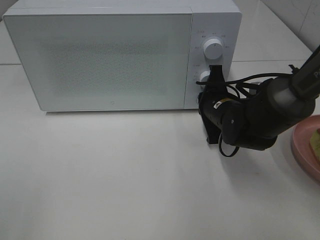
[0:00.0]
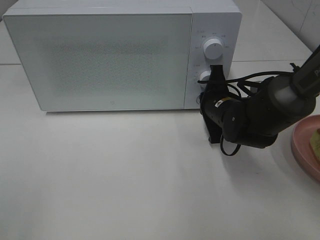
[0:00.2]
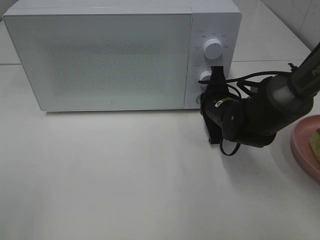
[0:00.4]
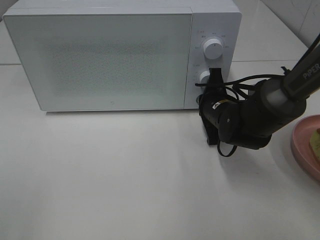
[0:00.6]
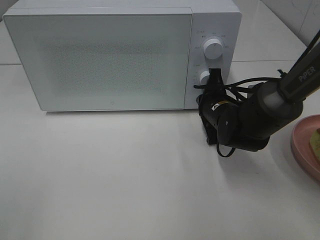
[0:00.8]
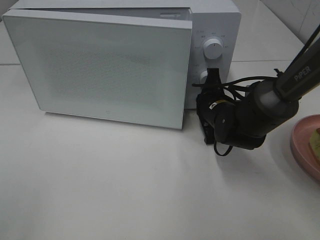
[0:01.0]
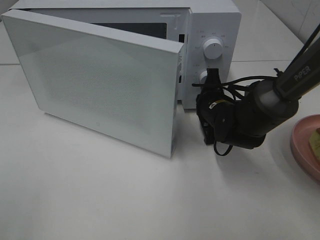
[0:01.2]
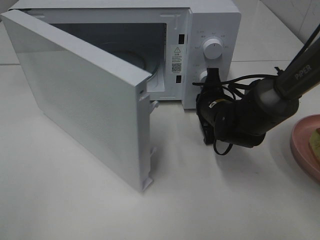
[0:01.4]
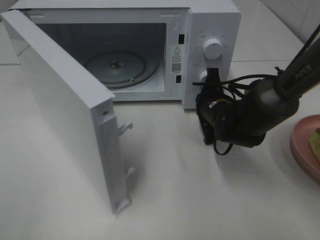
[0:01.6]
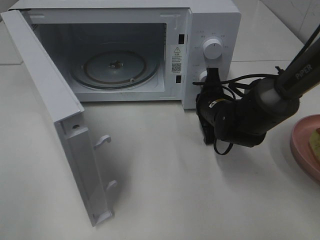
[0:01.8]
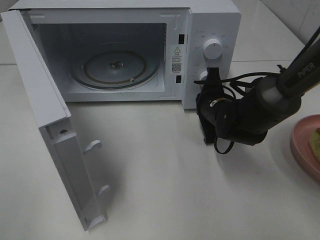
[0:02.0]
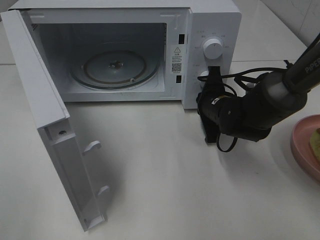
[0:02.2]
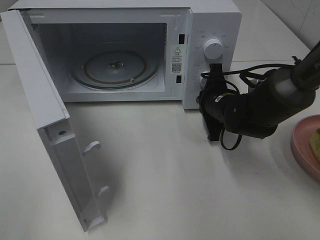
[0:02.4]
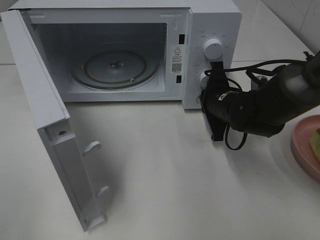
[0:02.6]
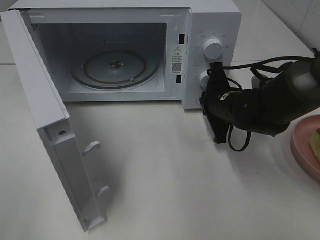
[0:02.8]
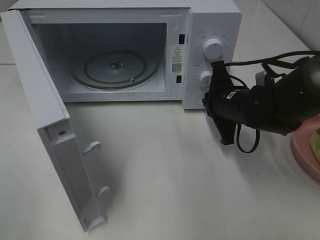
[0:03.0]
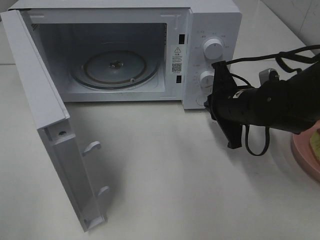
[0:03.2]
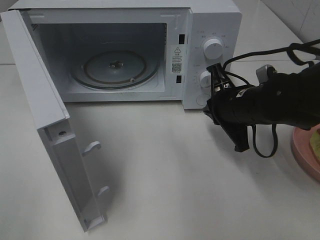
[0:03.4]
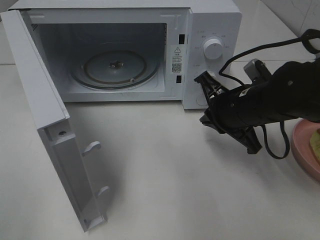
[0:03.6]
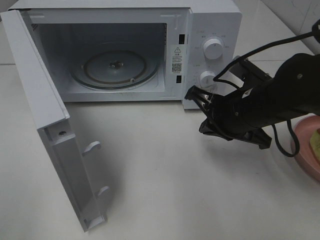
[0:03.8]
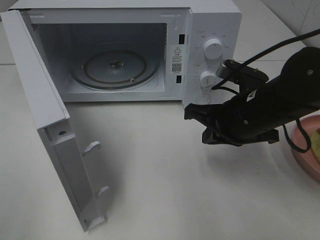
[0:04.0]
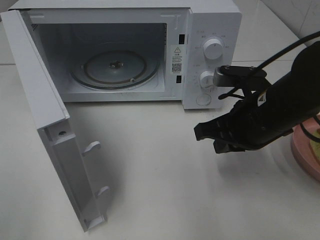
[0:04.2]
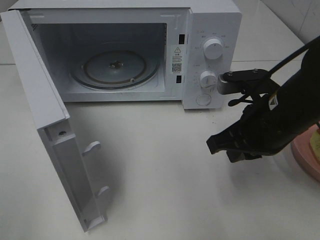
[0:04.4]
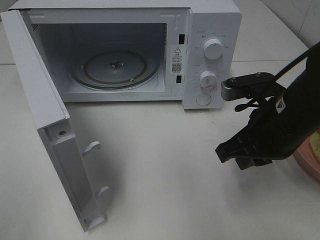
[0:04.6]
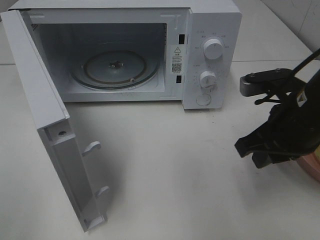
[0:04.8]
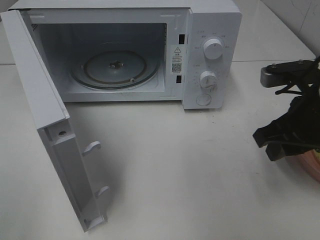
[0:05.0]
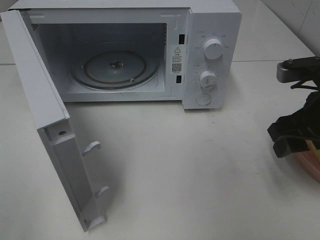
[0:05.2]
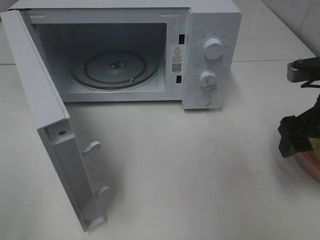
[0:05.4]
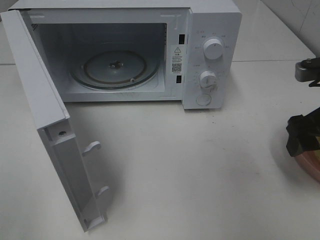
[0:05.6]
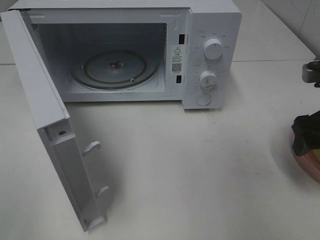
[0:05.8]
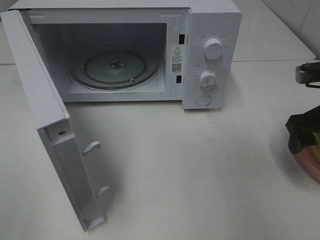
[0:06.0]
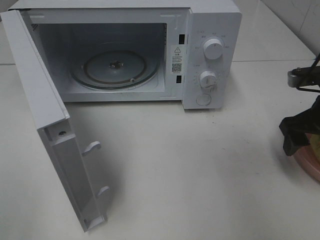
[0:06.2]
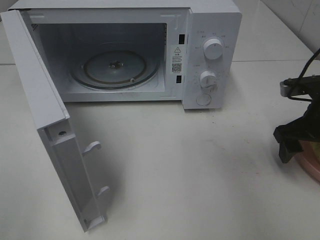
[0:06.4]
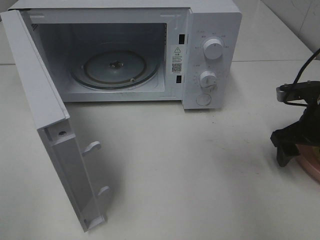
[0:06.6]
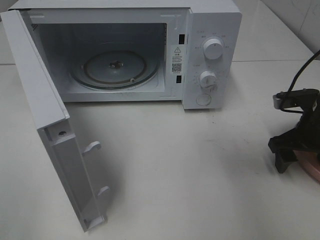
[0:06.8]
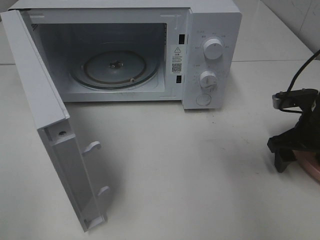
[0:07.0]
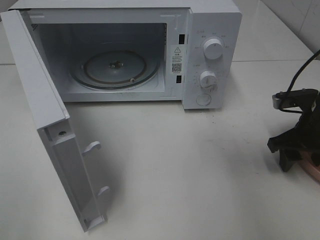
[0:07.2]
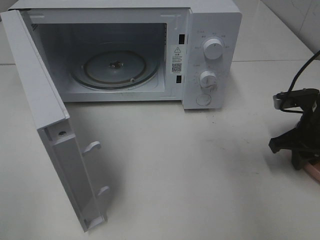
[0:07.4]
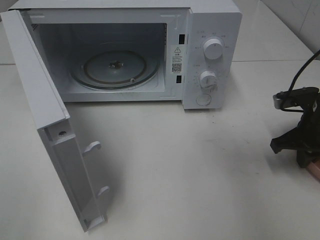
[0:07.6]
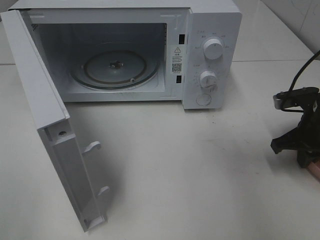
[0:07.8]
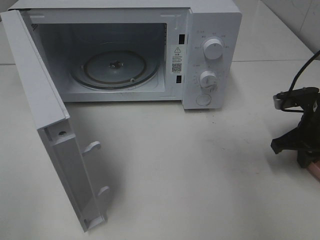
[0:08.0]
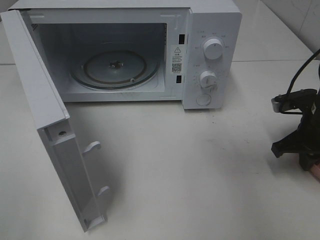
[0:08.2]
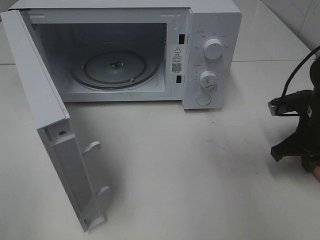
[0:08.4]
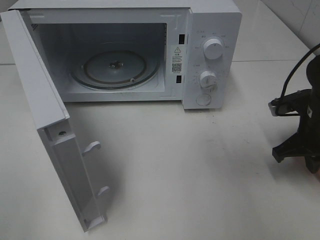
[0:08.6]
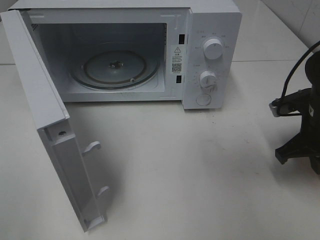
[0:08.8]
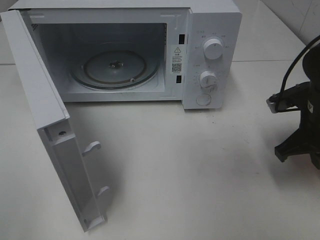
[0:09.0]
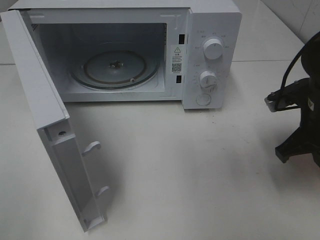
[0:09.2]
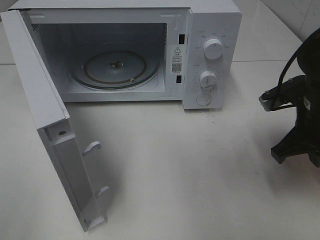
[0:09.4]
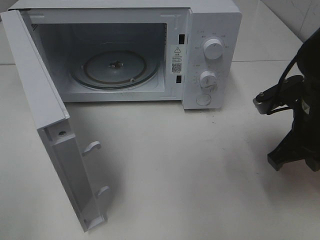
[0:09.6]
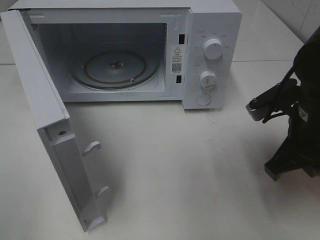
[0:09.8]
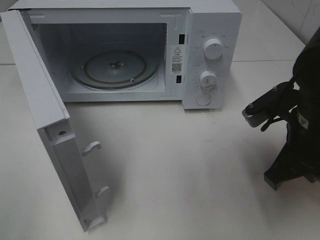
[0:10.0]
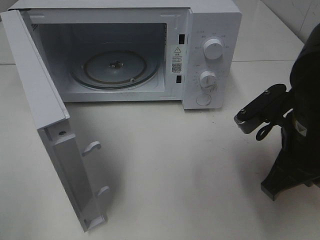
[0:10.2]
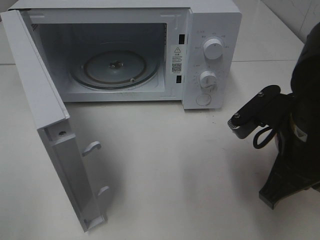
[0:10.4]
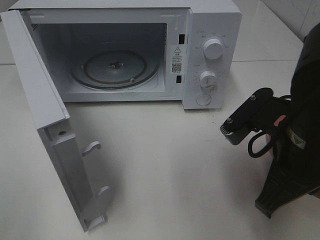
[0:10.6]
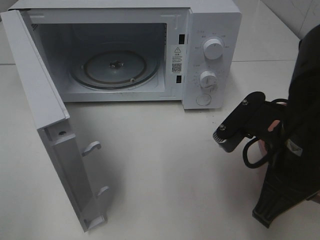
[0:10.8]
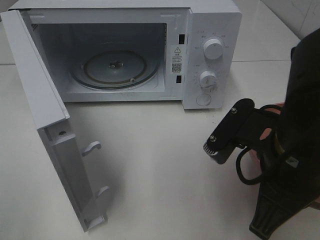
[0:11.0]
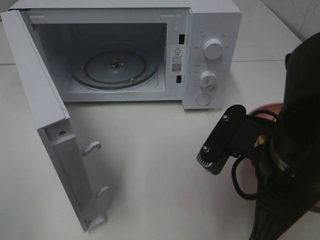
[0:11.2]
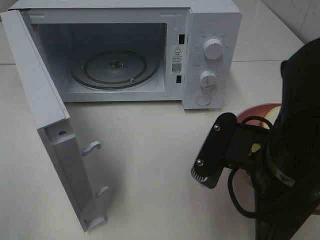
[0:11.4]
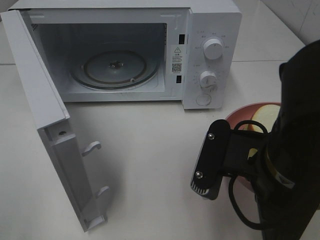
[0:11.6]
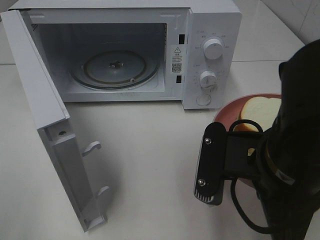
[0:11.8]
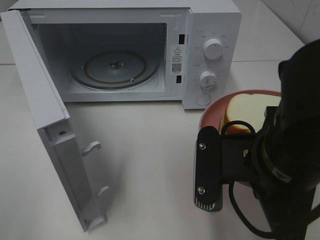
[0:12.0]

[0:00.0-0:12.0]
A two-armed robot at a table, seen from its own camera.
Task of the whole recording: Heat Sandwich.
Step, 0:00.0 to 0:03.2: Right hand: press the switch.
Step, 0:03.4 to 0:08.0: Right hand: grab the plate with the sandwich.
0:01.6 to 0:03.0: The right gripper moves about 5 cm.
0:03.0 to 0:04.4: The right gripper is displaced backward and upward by approximately 10 cm.
0:04.4 to 0:06.0: The right gripper goes about 10 cm to the right, and opens up.
0:06.0 to 0:07.6: The right gripper moves downward, approximately 5 cm, and closes its fingers.
0:07.6 to 0:09.0: The grippers make only small movements.
0:09.0 to 0:10.4: The right gripper moves backward, to the left and upward, roughly 15 cm.
0:10.4 to 0:12.0: The right gripper travels to the left by some 5 cm.

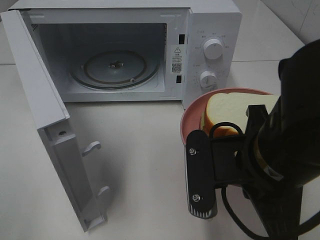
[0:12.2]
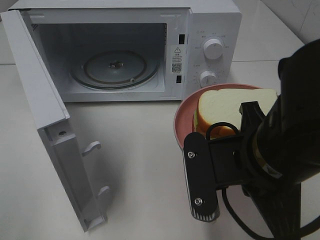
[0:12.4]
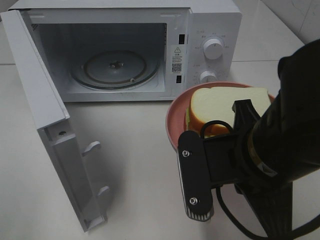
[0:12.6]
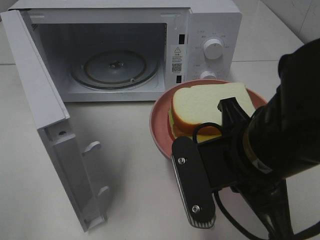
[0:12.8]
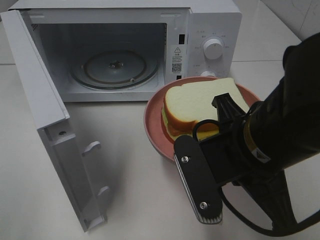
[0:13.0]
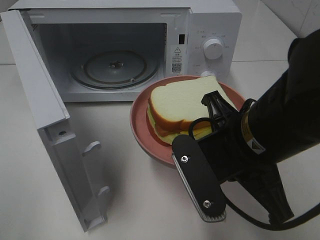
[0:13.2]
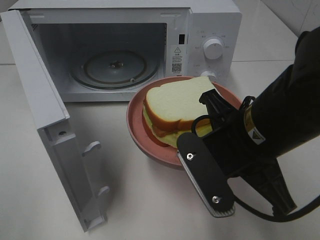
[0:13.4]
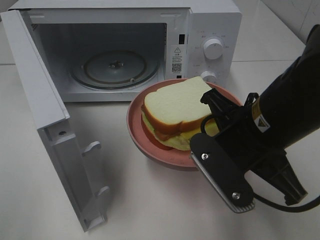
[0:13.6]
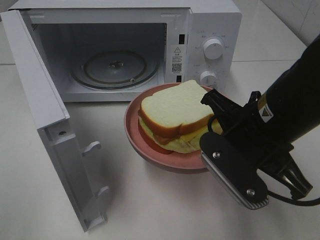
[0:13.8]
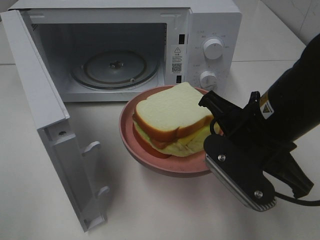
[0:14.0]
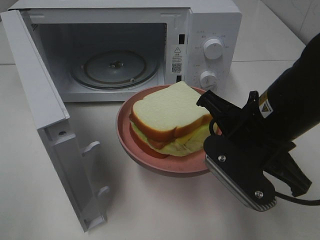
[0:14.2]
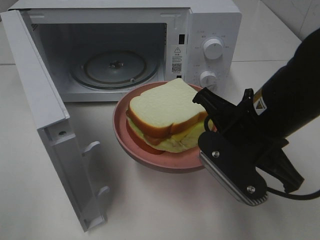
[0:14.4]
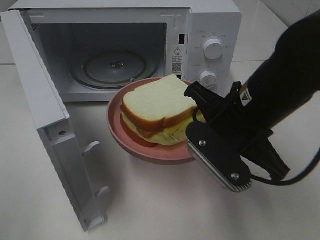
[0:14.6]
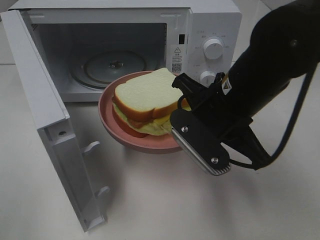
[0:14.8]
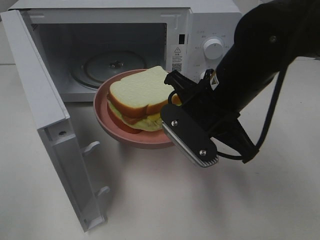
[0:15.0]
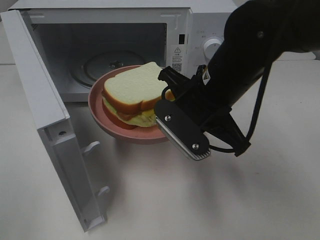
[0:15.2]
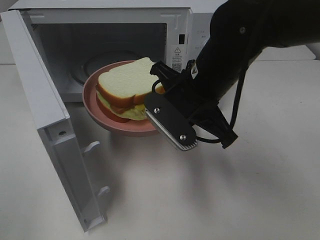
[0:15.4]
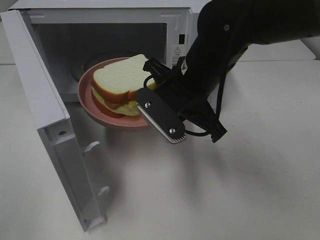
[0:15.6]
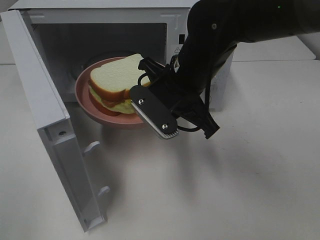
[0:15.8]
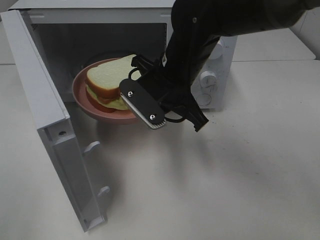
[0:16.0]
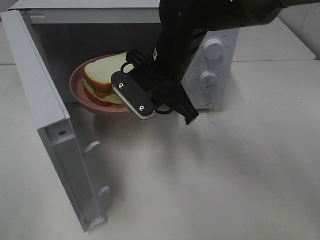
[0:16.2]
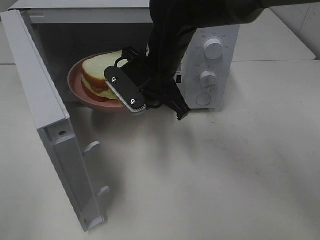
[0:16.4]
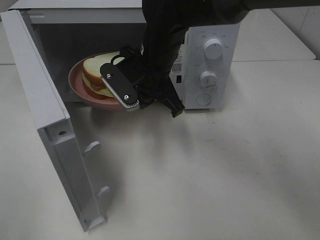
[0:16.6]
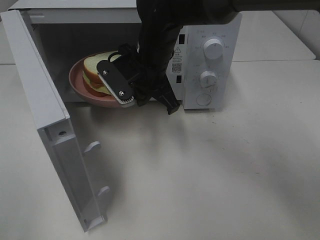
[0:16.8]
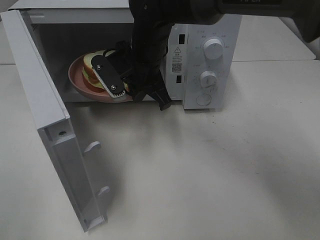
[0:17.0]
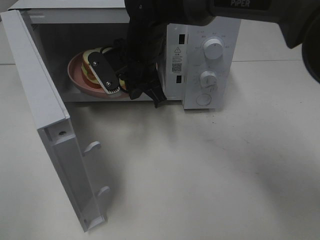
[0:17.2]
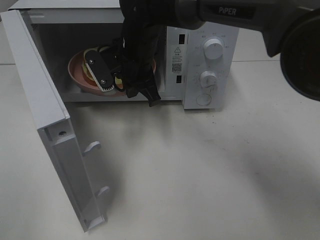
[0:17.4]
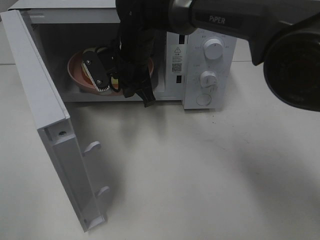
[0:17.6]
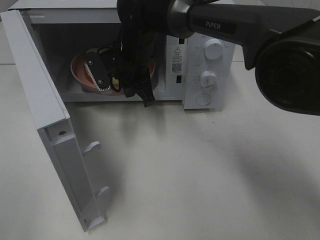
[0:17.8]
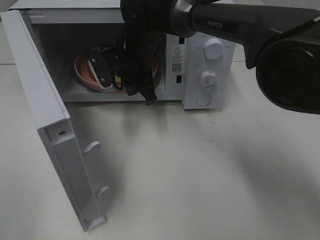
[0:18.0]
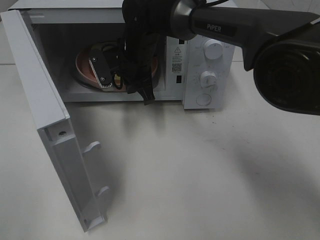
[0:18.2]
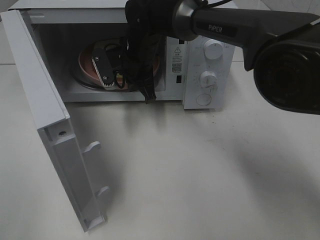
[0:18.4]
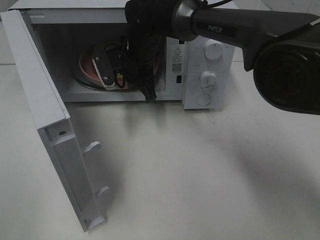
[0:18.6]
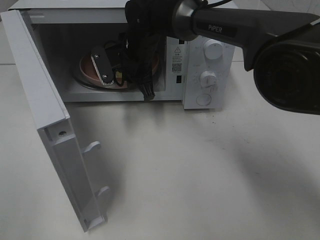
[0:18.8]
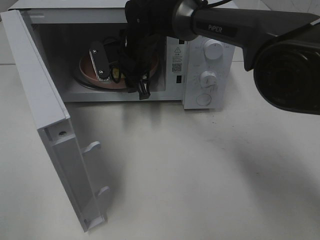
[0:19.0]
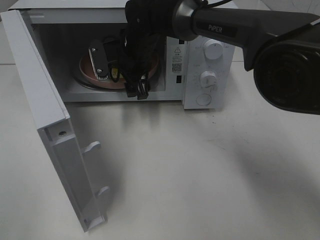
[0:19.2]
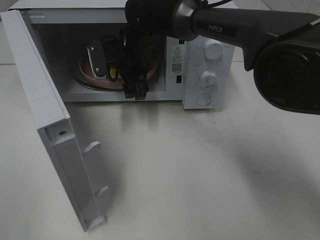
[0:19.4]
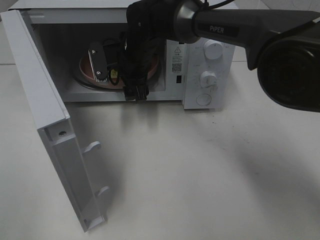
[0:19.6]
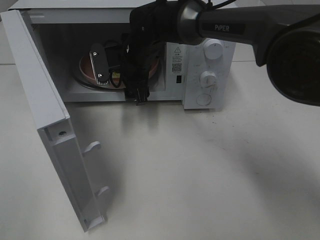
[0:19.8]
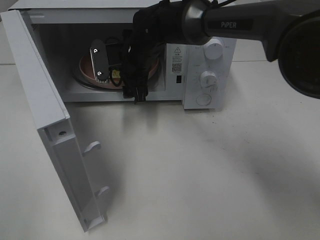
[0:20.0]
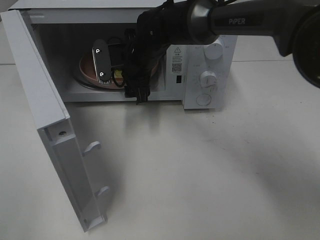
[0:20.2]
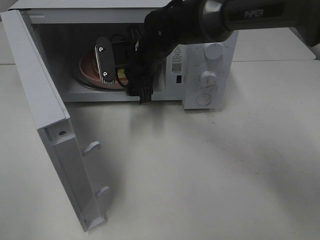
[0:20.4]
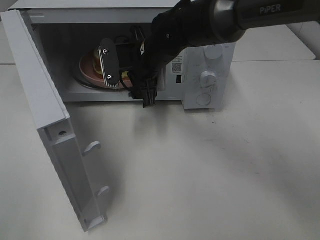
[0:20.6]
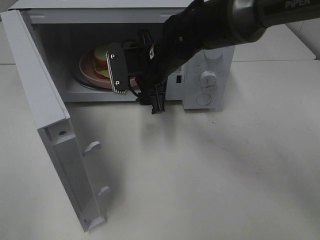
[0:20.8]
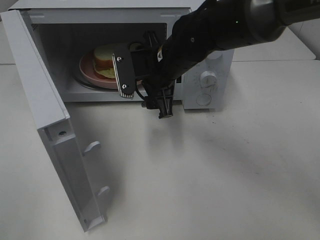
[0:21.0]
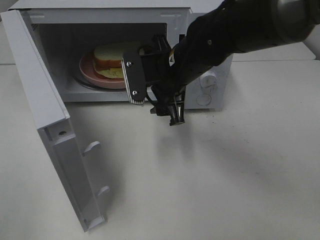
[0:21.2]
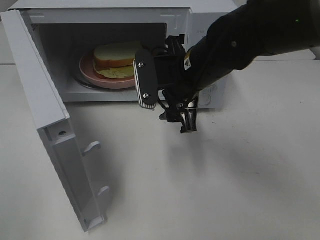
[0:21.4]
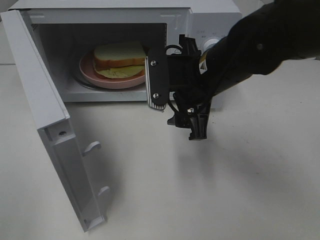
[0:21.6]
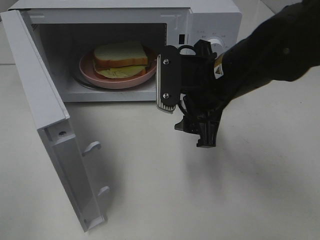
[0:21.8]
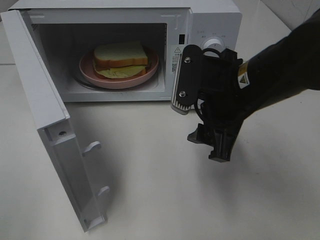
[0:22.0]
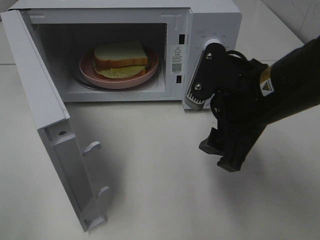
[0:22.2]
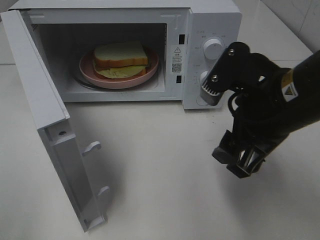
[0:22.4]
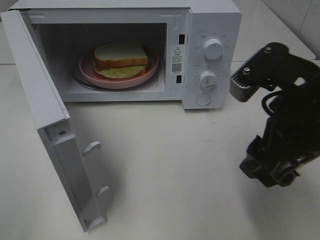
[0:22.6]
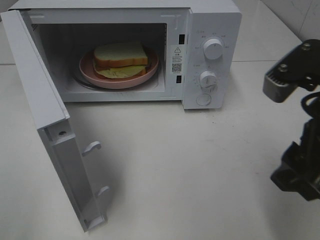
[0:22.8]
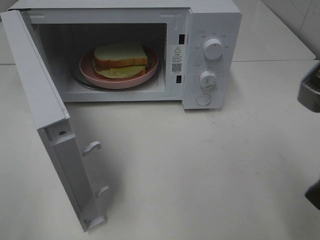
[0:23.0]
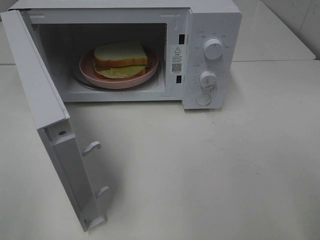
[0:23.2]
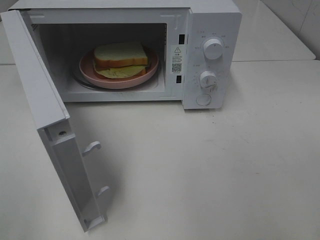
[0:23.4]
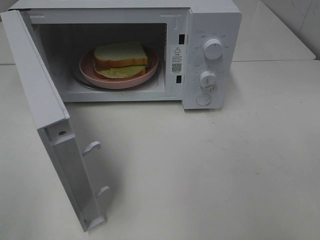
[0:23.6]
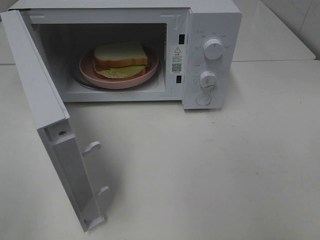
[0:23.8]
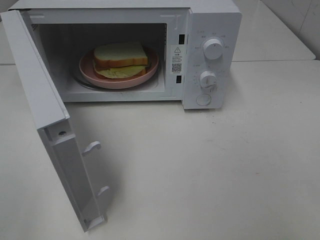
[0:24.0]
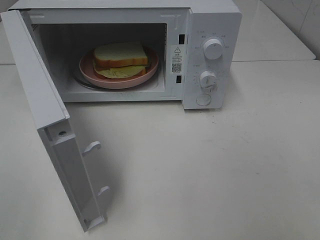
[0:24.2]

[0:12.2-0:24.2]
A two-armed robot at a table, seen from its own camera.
Task of the whole recording: Heat Sandwich.
Step, 0:12.2 to 0:20.0: Right hand: place the plate in the microwave.
0:12.2 to 0:13.8: The right gripper goes approximately 5 cm forward.
0:13.8 to 0:15.2: The right gripper moves forward and to the left, about 10 cm.
0:15.2 to 0:16.6: The right gripper is displaced forward and to the left by about 15 cm.
0:16.6 to 0:18.2: The right gripper is displaced forward by some 5 cm.
0:18.2 to 0:19.8: The right gripper opens up.
0:19.8 to 0:21.2: The right gripper is displaced backward and to the right by about 15 cm.
0:21.2 to 0:22.6: The right gripper travels backward and to the right by about 20 cm.
0:22.6 to 0:24.2: The right gripper travels backward and to the right by about 20 cm.
